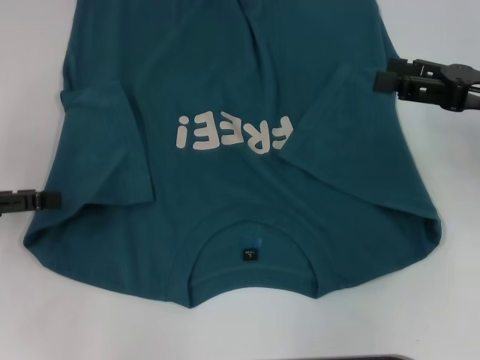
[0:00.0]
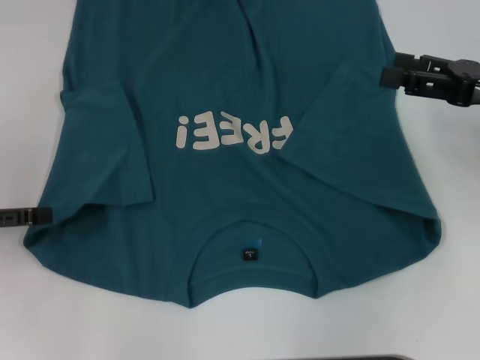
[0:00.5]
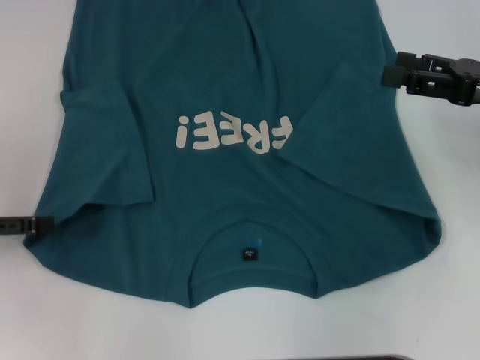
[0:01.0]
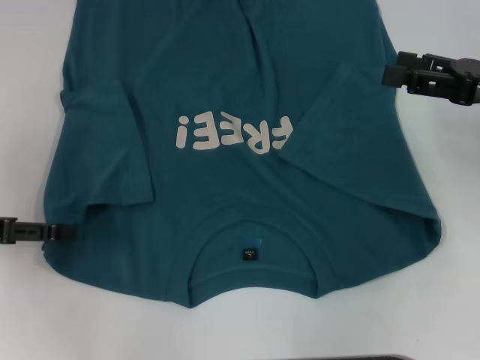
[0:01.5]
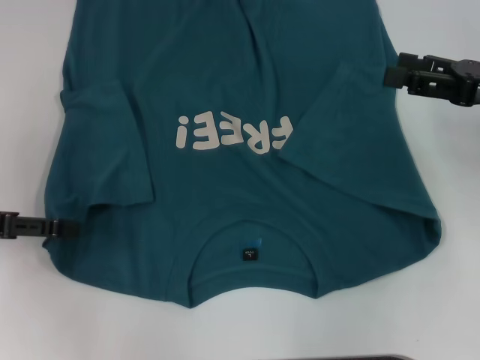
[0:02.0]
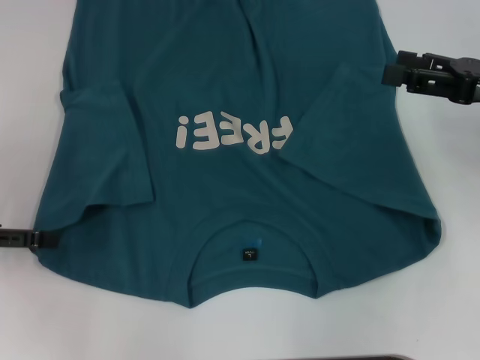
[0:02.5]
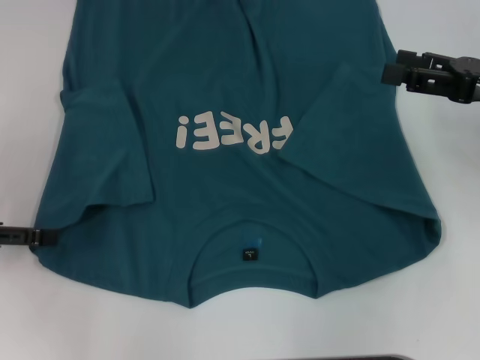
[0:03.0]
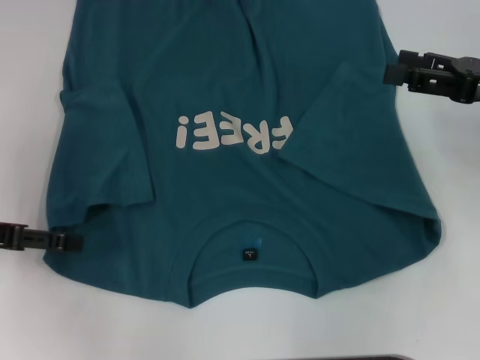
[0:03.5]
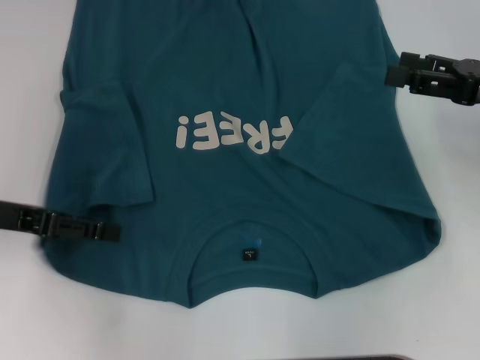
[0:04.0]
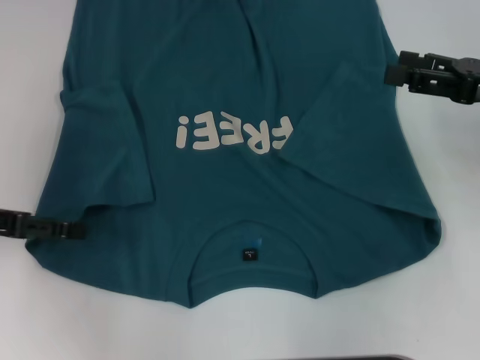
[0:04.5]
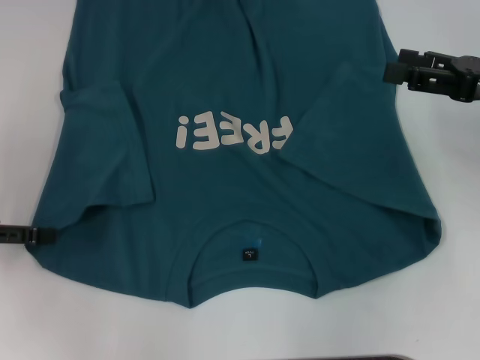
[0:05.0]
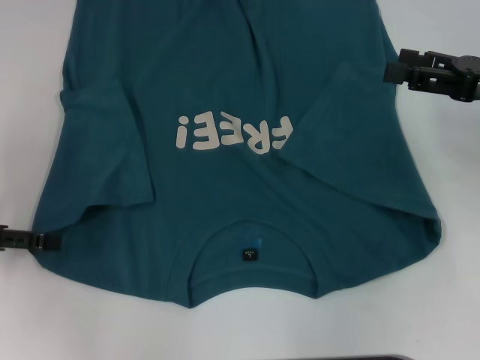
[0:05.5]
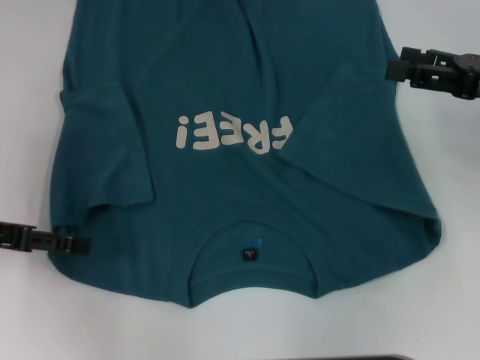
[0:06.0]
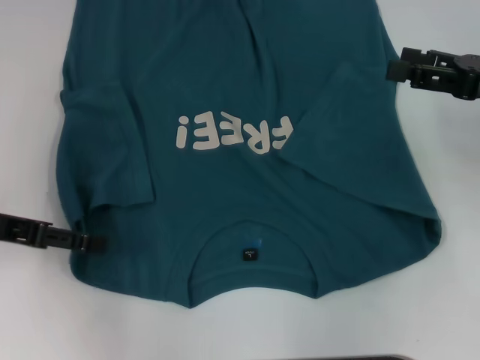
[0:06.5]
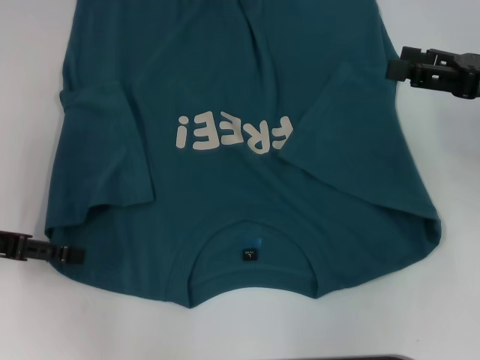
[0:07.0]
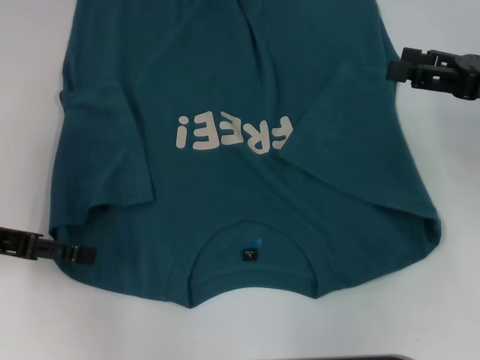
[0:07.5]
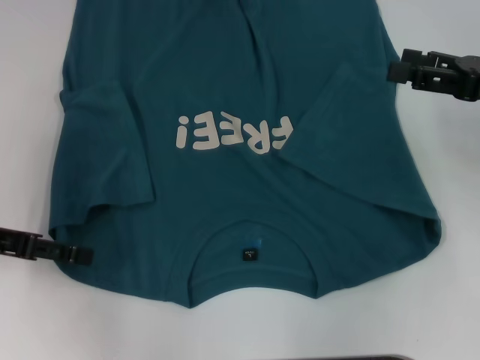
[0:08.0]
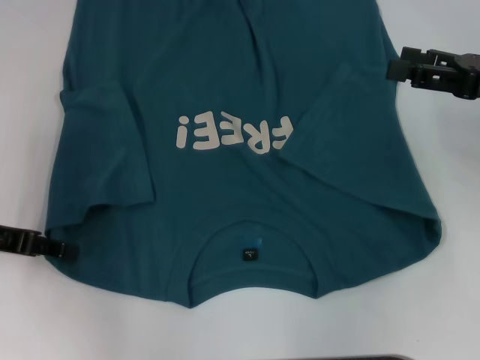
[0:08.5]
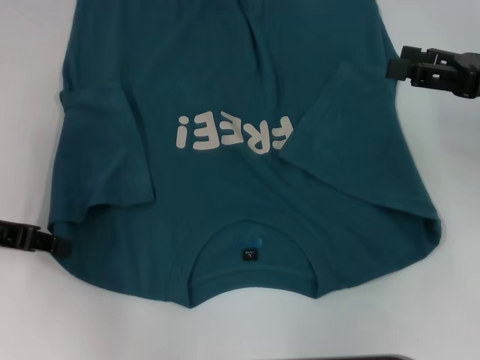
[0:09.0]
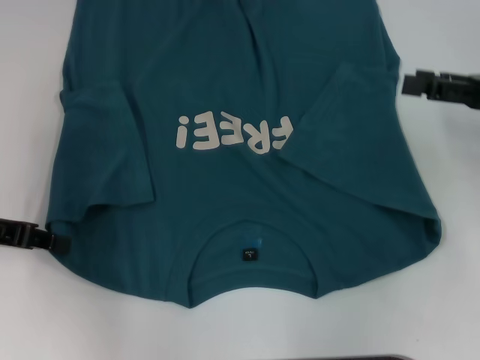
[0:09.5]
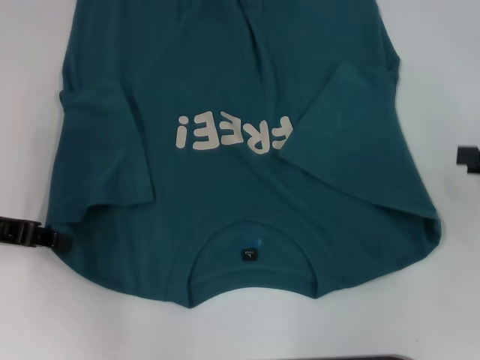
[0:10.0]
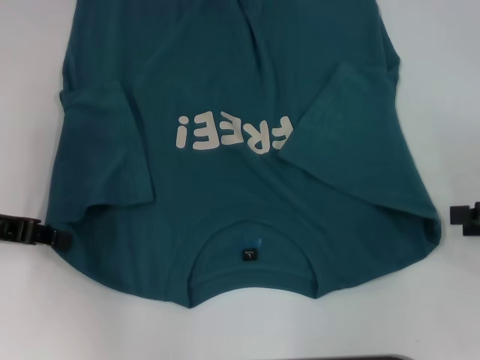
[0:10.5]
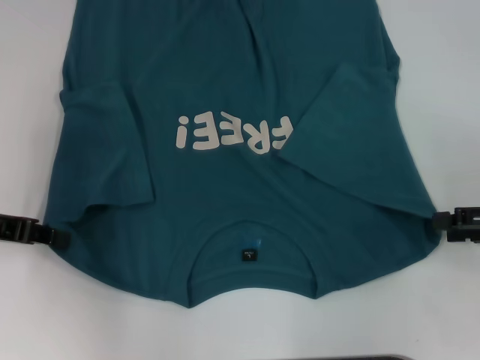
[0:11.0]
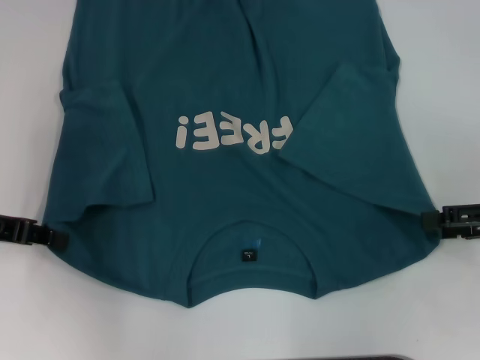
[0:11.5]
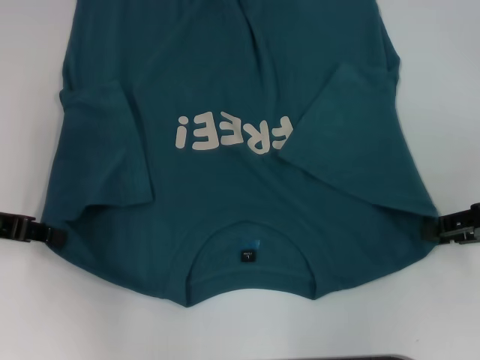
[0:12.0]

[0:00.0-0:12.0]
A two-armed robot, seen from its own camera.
Step, 0:00.0 to 0:09.0: Grab the bottom left corner with your left hand.
0:00.0 to 0:04.0: There are only small adjustments of the grippers.
0:04.0 to 0:08.0: The grippers make only small movements.
0:08.0 to 0:10.0: The left gripper closes; the right gripper moves to the right and backward, approximately 10 cm.

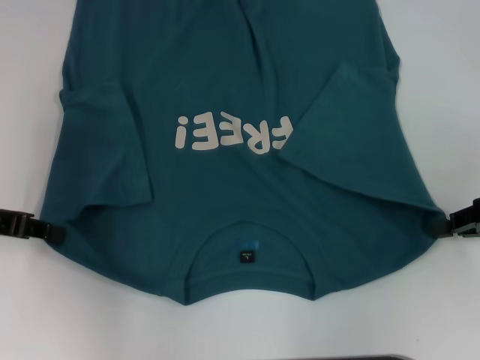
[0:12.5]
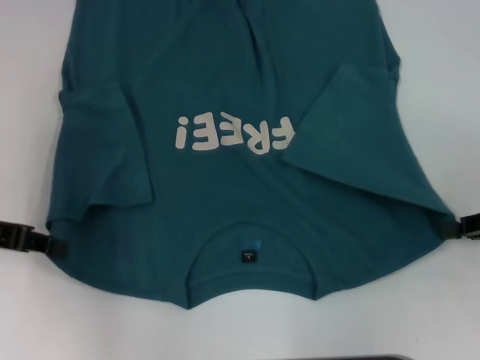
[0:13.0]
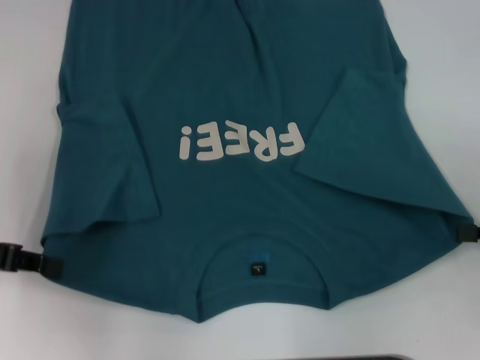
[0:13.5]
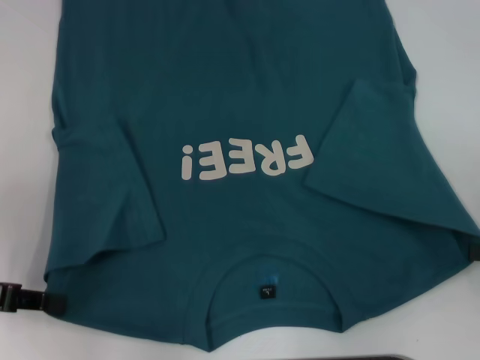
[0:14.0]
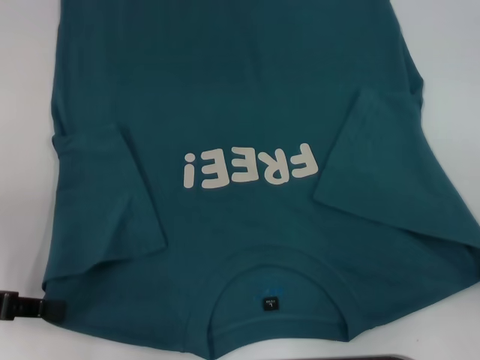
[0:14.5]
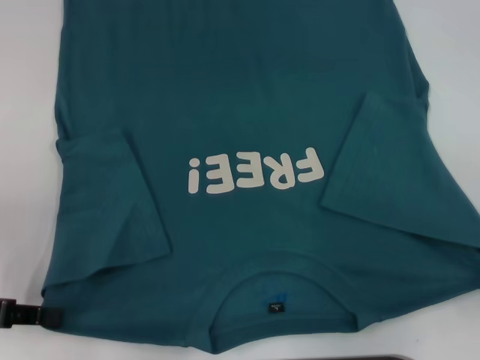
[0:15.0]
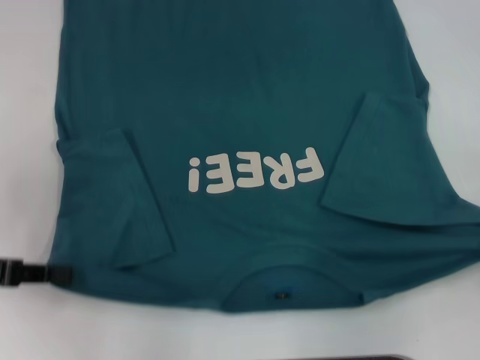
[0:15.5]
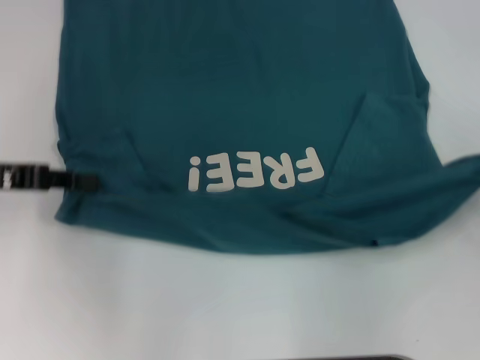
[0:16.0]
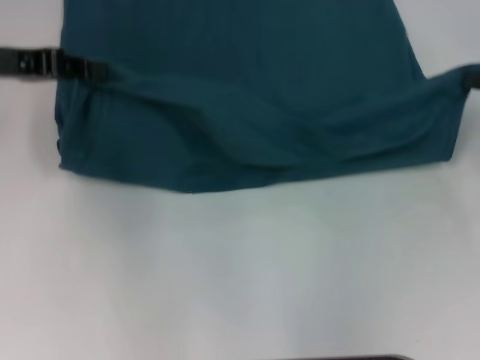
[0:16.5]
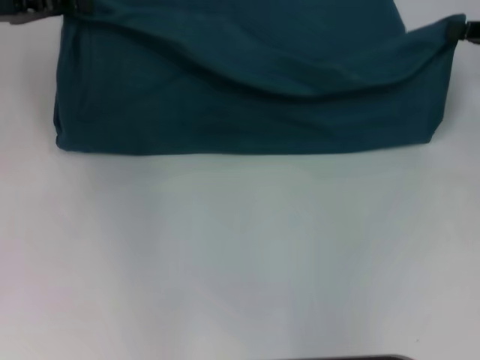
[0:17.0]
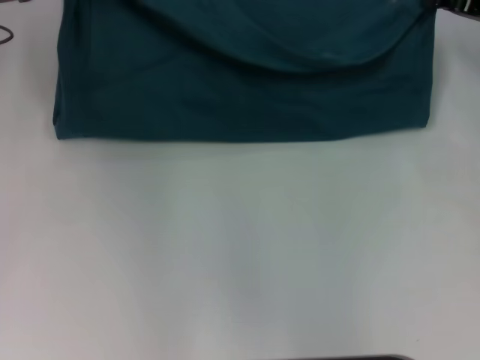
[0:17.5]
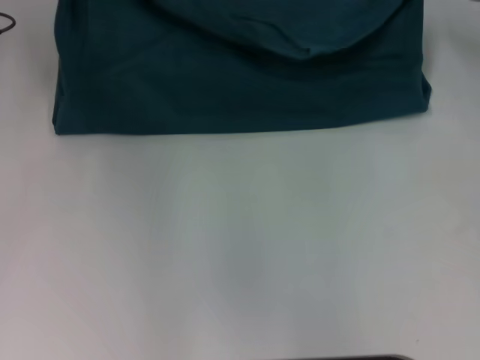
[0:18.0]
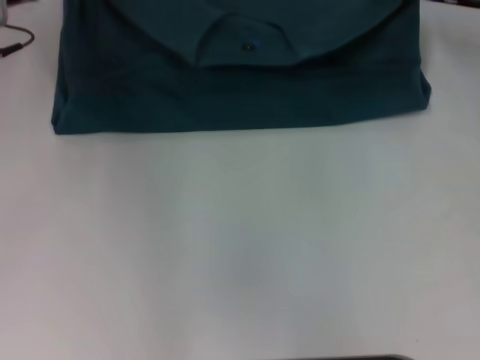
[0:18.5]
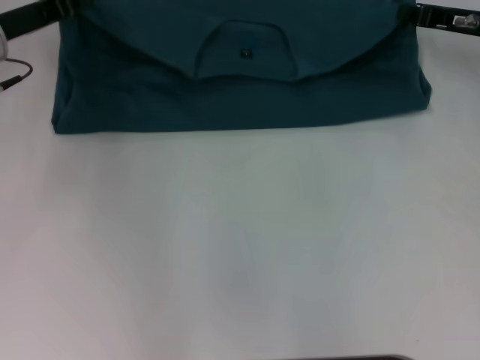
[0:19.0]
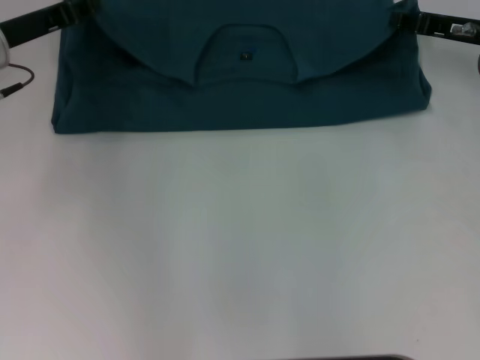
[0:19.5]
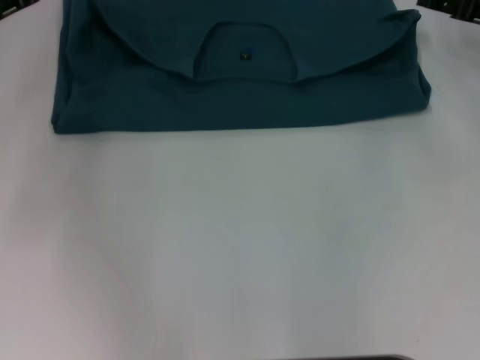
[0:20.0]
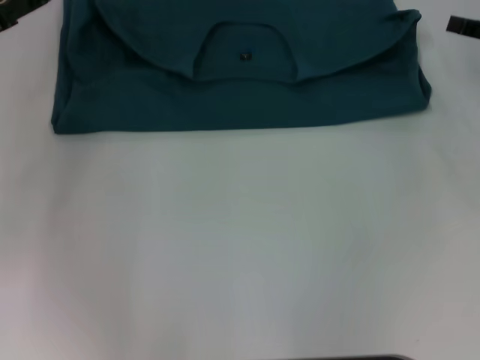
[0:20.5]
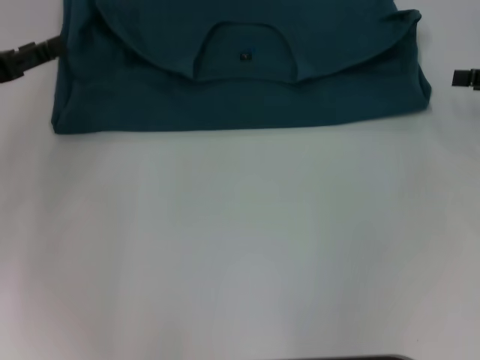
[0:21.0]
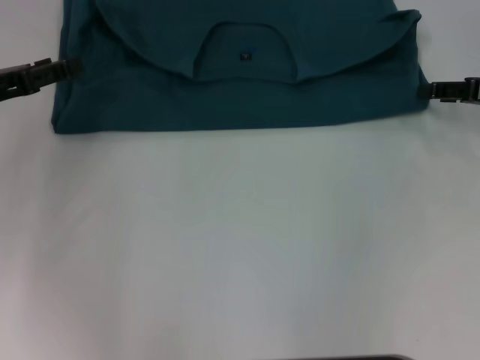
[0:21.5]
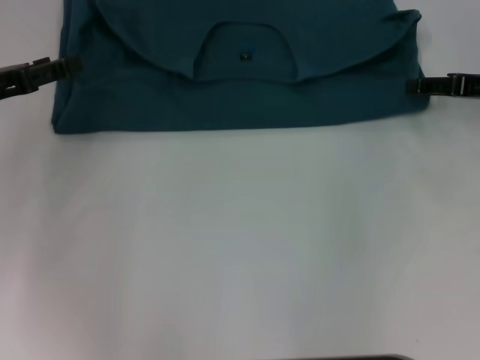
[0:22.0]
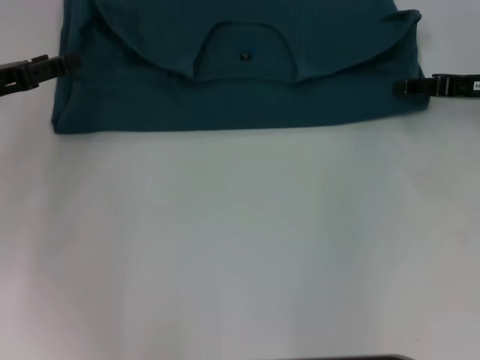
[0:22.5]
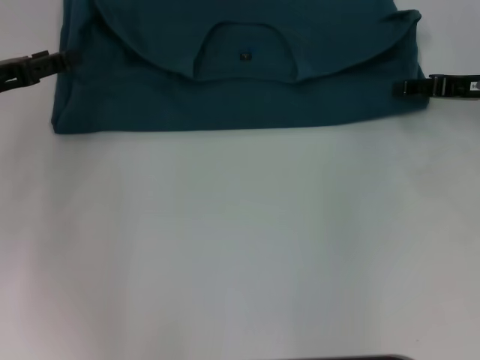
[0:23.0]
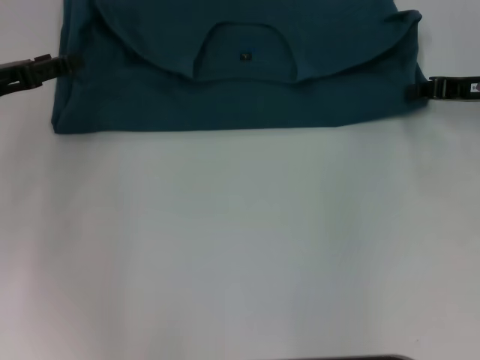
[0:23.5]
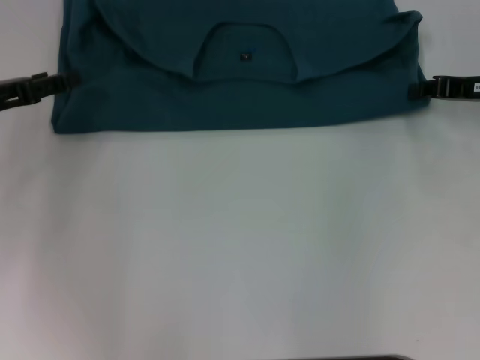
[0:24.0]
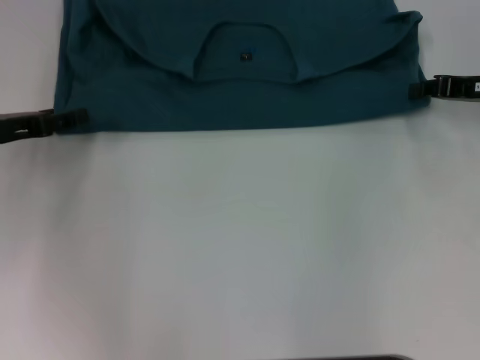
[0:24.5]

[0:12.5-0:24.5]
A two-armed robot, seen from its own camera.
Step, 0:13.5 to 0:19.5: Fold the clothes to the left.
Step, 0:13.5 to 0:19.5: Fold the clothes to the right.
0:12.5 to 0:14.5: Both grippers move backward, approximately 10 cm.
0:14.5 to 0:16.5: The grippers both shift forward and upward by roughly 15 cm.
0:16.5 to 0:18.5: The right gripper heads forward and to the left, covering roughly 15 cm, while the left gripper is displaced forward by approximately 5 cm.
0:18.5 to 0:20.5: The right gripper travels backward and to the right by about 10 cm, and opens its fingers; the left gripper travels backward and to the left by approximately 10 cm, and opens its fingers.
0:20.5 to 0:22.5: The right gripper changes place by roughly 5 cm.

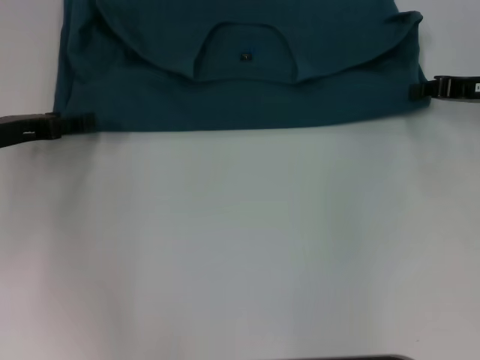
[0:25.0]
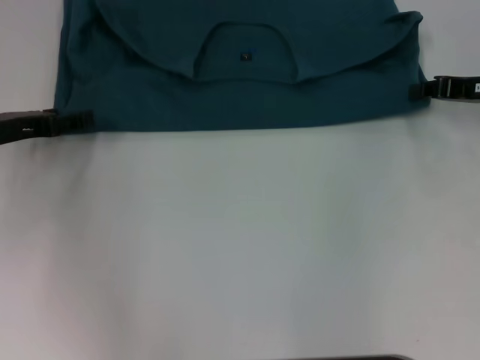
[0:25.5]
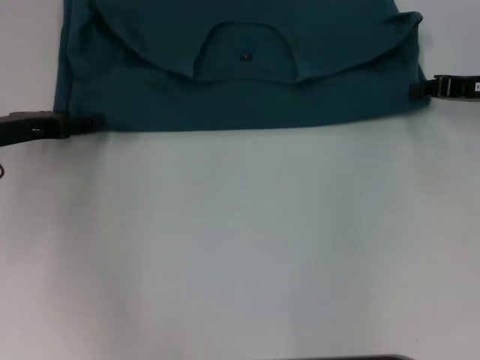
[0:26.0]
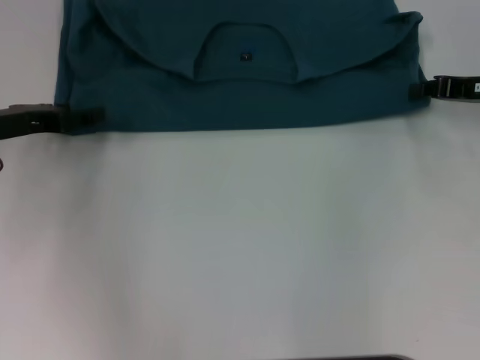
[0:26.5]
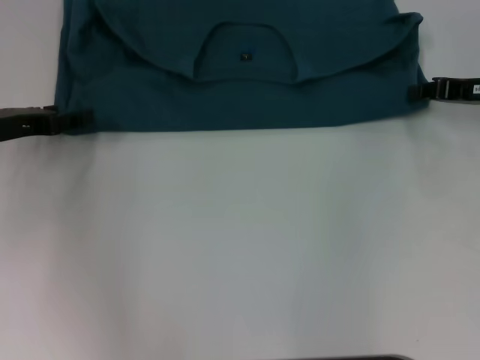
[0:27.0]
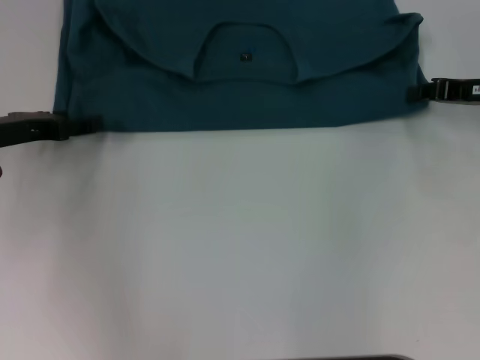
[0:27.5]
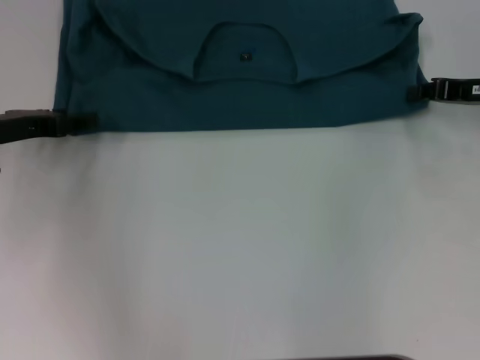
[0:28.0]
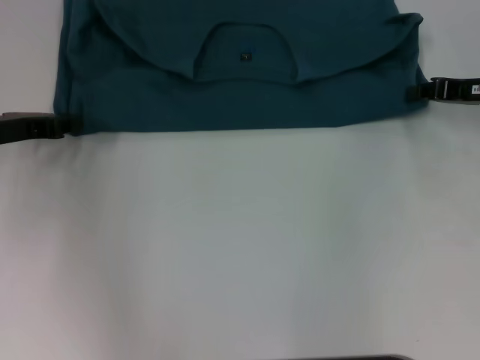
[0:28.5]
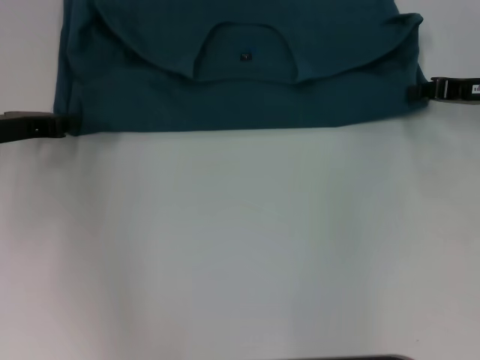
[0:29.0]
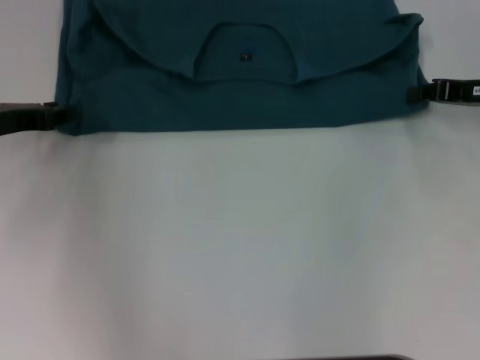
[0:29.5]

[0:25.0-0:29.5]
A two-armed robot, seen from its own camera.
0:25.0 to 0:27.0: The grippers stay close to where they were, moving slightly.
0:27.0 to 0:29.5: The left gripper closes.
